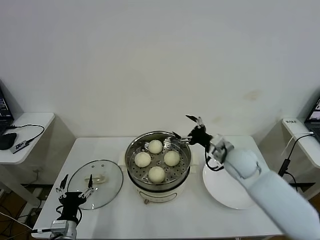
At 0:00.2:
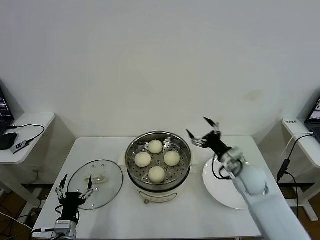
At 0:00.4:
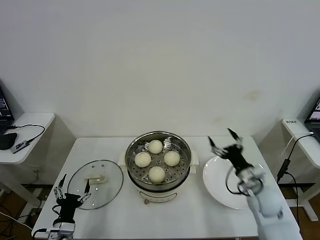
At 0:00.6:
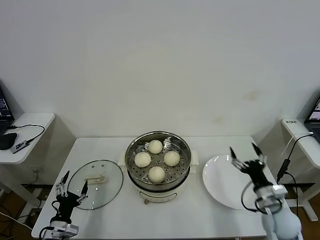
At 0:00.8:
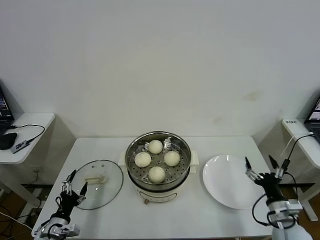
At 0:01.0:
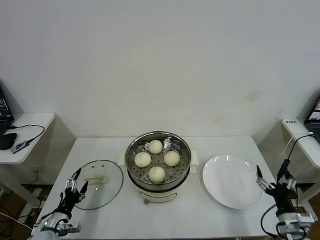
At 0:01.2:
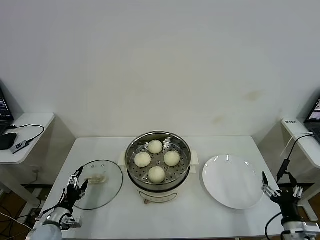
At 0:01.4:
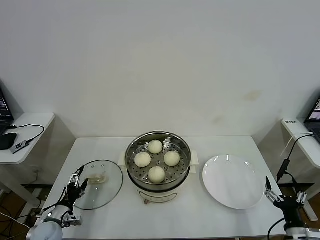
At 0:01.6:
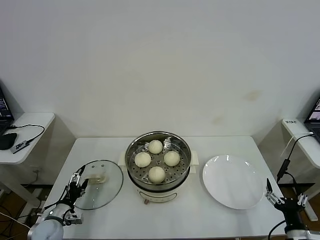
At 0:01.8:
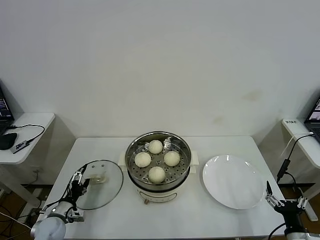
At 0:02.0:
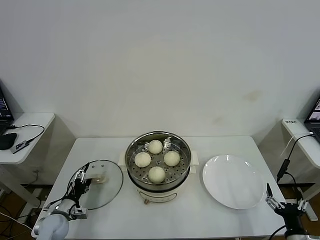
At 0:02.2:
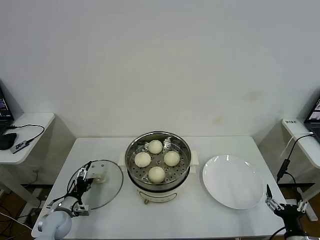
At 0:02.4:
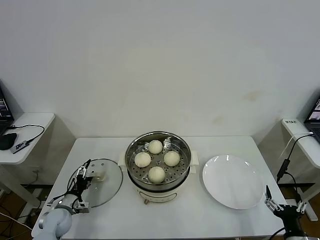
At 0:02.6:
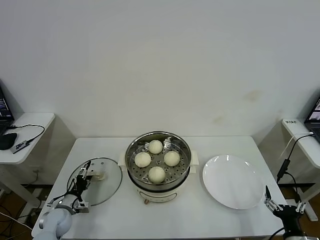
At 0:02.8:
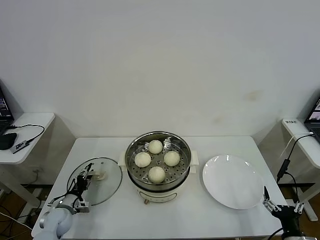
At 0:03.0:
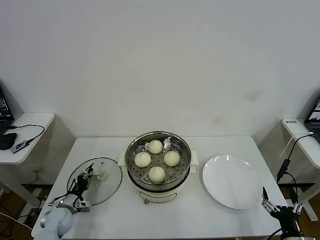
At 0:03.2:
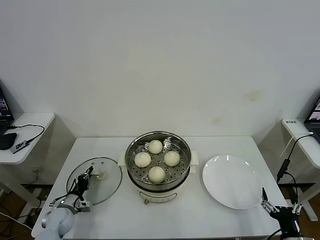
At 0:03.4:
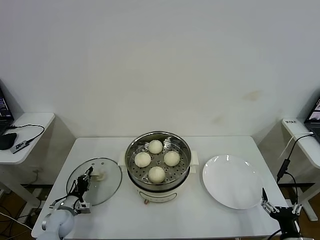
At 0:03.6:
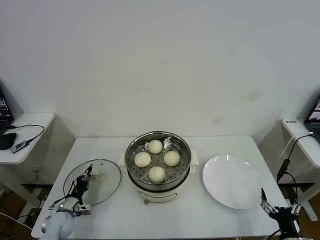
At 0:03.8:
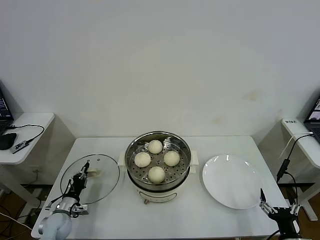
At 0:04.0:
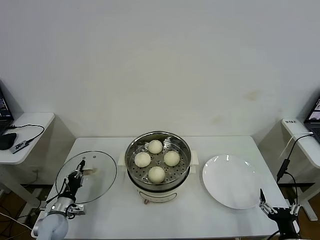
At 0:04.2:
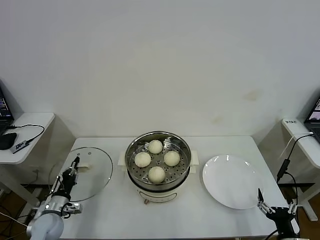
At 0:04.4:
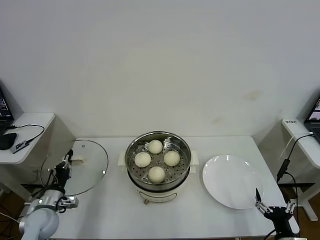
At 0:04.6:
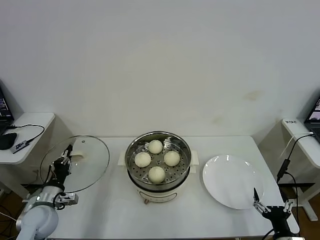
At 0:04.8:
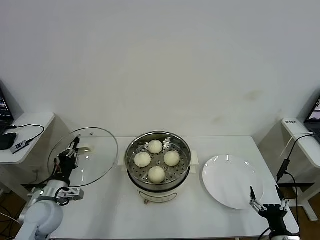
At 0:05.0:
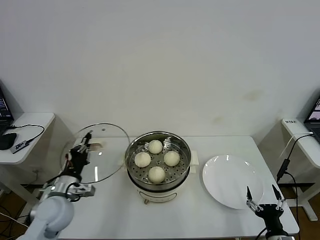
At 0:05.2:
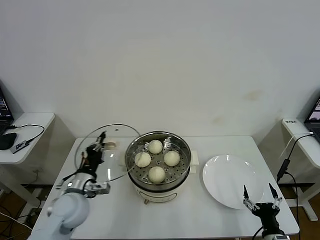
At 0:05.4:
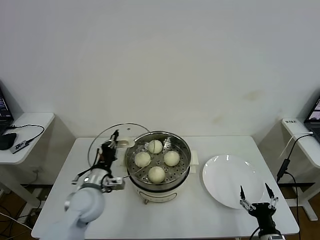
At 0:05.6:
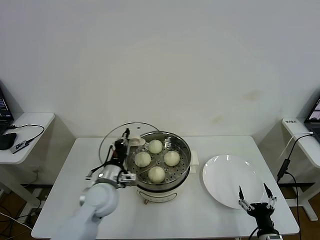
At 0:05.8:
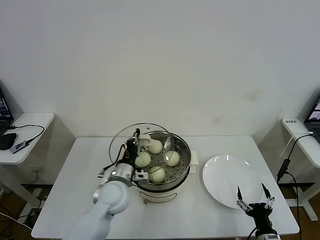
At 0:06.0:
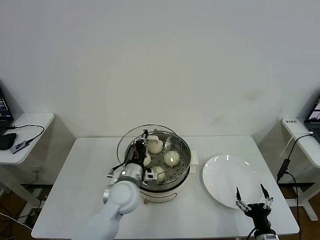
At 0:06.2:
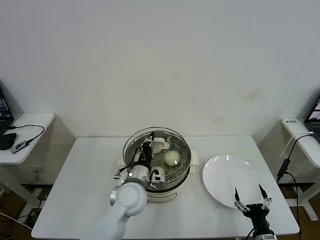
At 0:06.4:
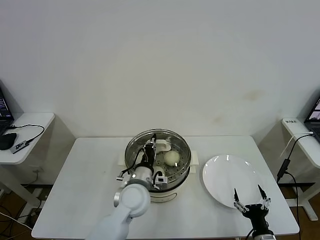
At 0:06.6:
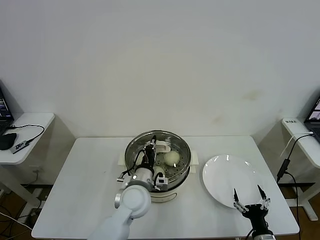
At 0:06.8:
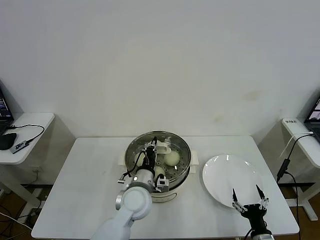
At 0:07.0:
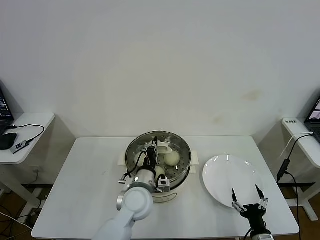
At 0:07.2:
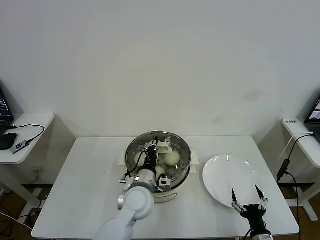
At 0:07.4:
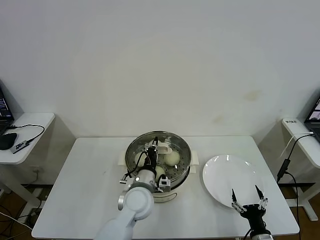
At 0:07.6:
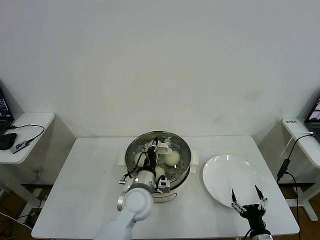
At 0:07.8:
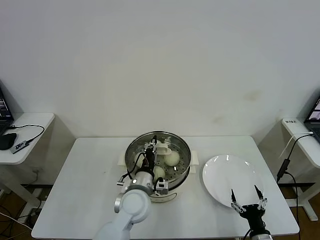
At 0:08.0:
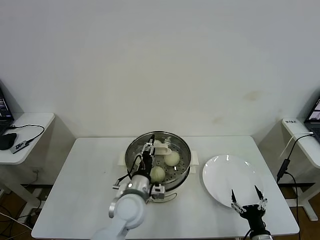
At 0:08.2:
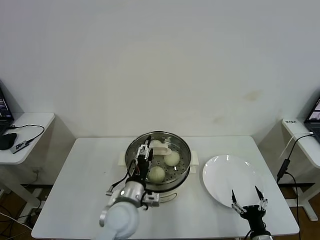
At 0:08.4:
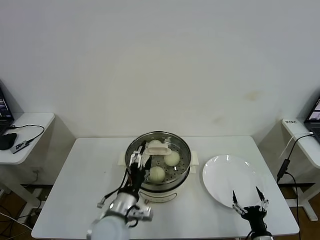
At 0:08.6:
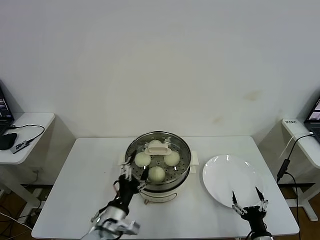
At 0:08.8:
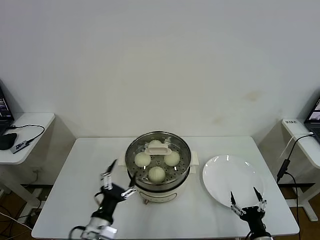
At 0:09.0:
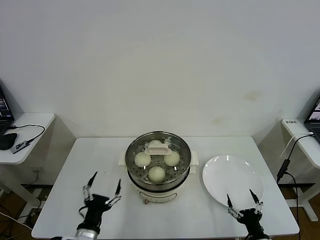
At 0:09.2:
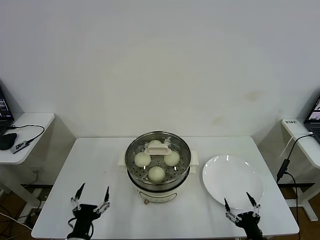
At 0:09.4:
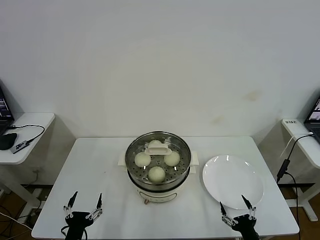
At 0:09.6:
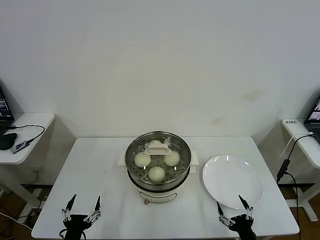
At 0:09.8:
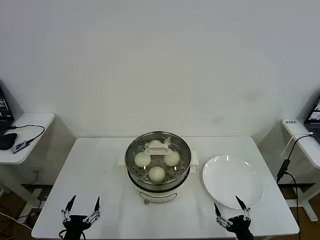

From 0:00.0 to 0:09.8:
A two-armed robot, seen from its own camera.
Task of the whole recording: take steamed baozi put them in steamer then cover it.
Step, from 0:00.0 to 0:03.2: Grasp the pot lid with left gripper.
Step, from 0:03.4 to 0:07.8: Place the pot lid on the steamer with left gripper.
From 0:00.0 to 0:01.4: The left gripper heads to the left and forward, covering some 10 cm. The right gripper is displaced backward, to the right and downward by approximately 35 cm.
From 0:01.4 to 0:02.8: The left gripper is displaced forward by roughly 5 cm, and closes its fingers.
From 0:02.8 to 0:04.2: The left gripper closes.
From 0:04.2 to 0:05.6: The left gripper shifts roughly 25 cm to the right and upward. The right gripper ends up some 5 cm from where it was.
From 0:05.6 to 0:07.0: The left gripper is displaced to the right by about 10 cm.
From 0:07.0 to 0:08.4: The left gripper travels backward by some 5 cm, and opens up.
From 0:08.4 to 0:09.8: The left gripper shifts about 25 cm to the left, backward and downward.
